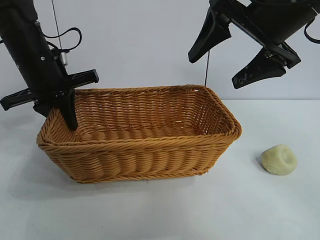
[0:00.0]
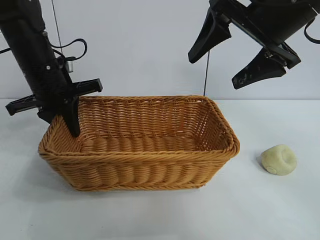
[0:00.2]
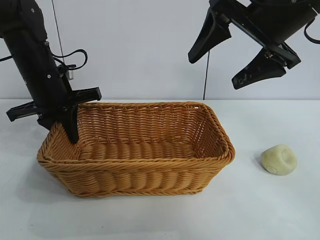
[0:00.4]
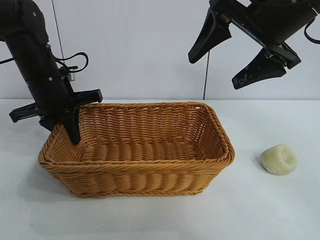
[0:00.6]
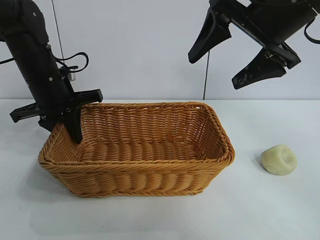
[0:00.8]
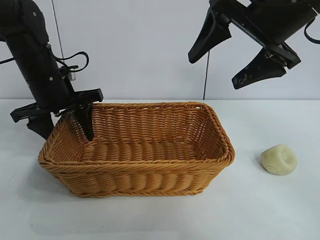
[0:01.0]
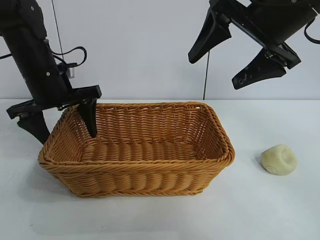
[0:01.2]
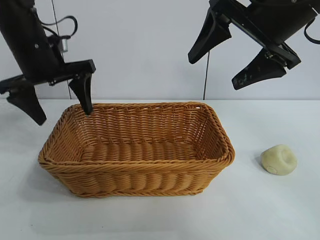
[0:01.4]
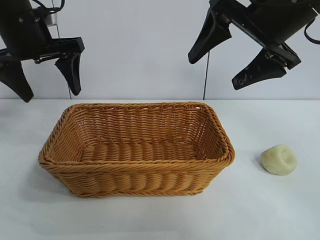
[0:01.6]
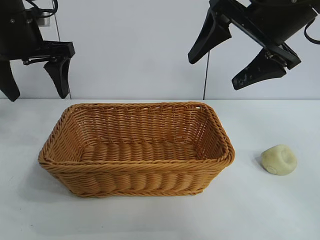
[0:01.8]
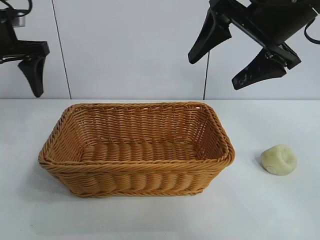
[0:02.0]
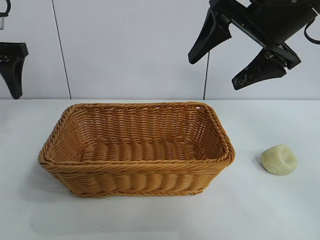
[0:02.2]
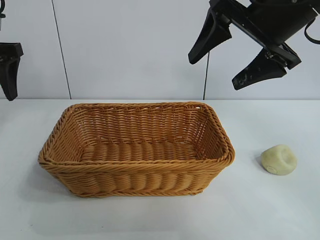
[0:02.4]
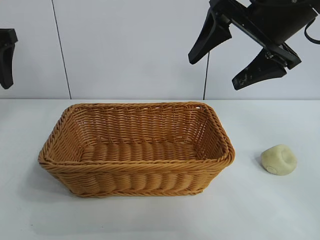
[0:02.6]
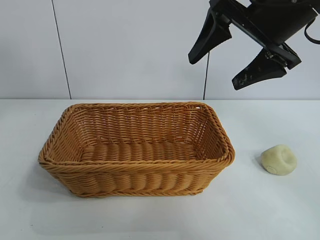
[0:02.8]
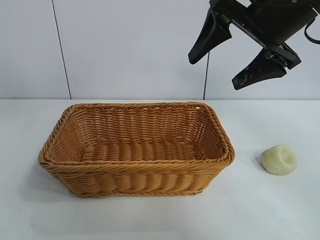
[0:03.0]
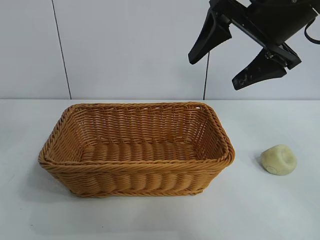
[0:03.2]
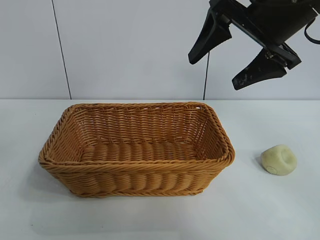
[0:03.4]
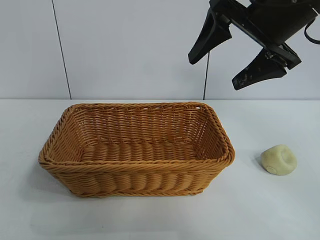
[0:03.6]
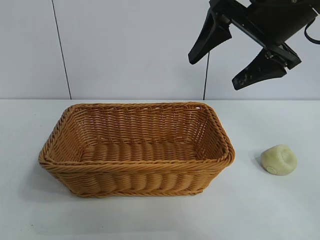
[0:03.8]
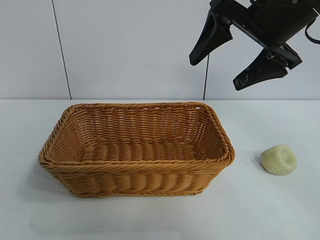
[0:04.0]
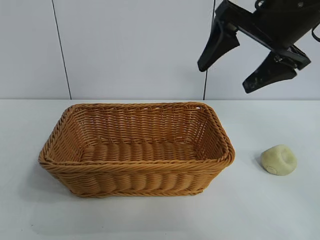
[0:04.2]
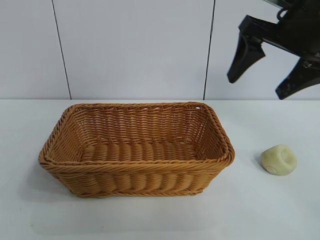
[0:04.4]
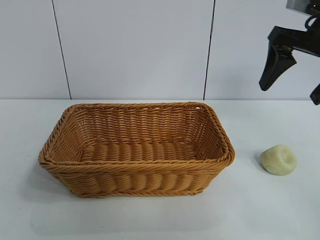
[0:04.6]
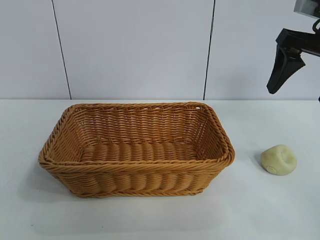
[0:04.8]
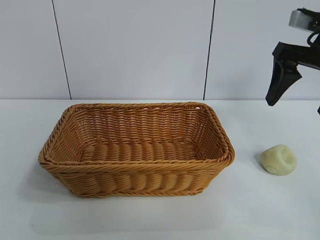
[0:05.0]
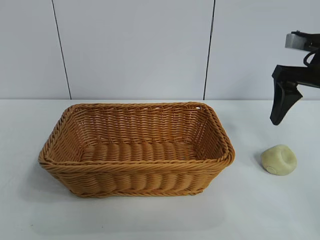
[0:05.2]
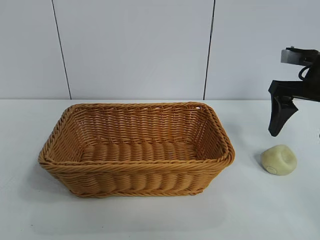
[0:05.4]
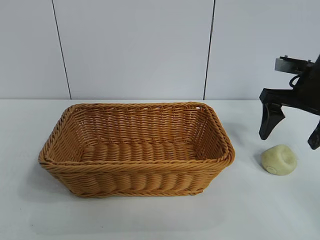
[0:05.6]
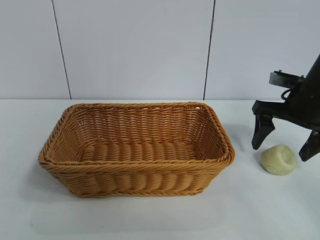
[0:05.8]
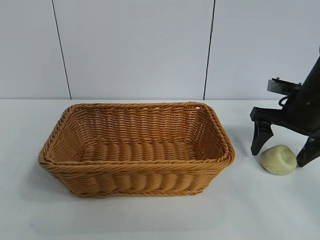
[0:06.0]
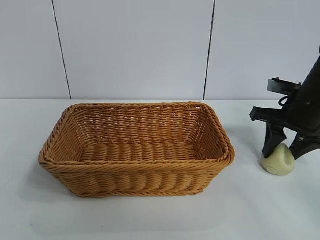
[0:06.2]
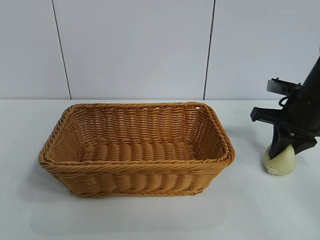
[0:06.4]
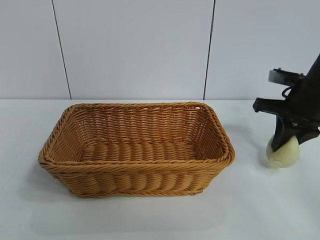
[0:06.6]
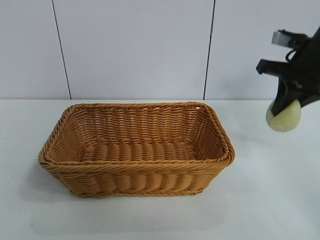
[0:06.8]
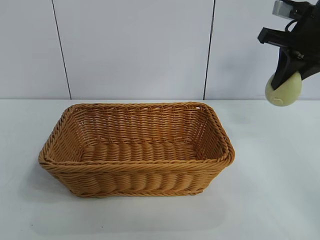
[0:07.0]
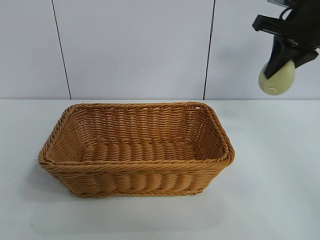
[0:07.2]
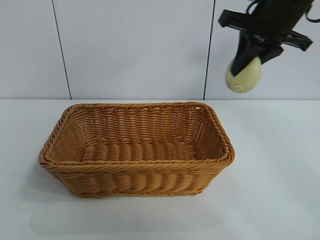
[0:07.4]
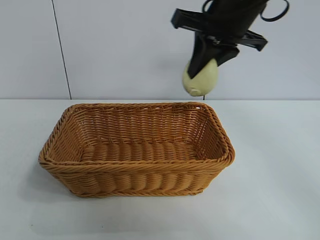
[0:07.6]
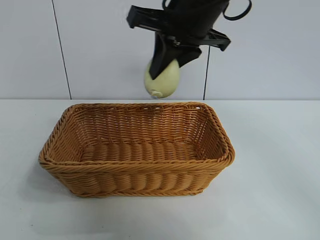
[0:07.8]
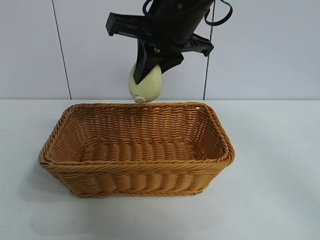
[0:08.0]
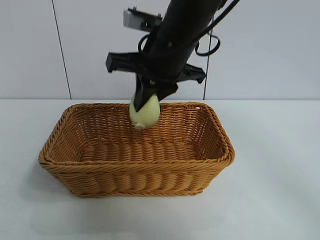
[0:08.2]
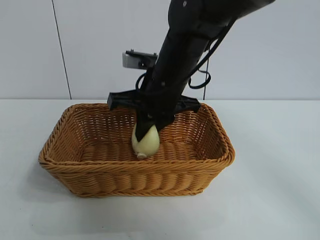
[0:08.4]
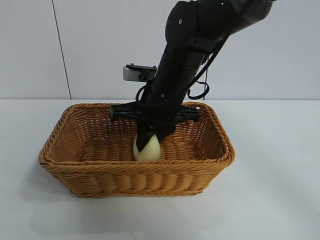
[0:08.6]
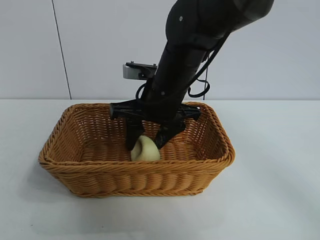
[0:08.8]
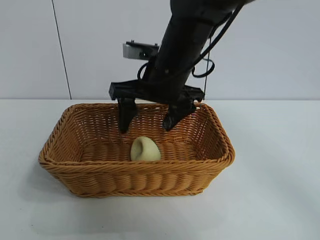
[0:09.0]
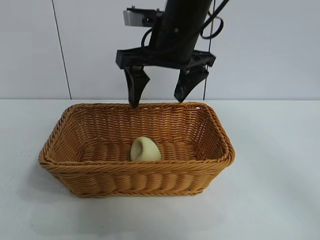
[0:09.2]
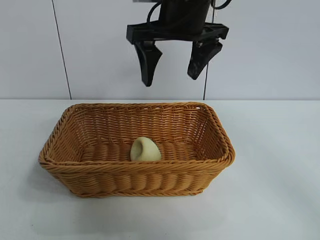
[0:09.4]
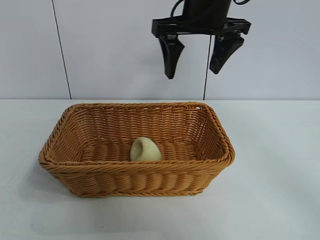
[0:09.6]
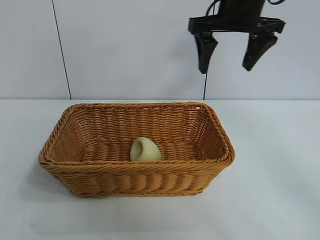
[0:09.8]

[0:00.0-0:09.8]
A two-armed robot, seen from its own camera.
Task of the whole recording: pick up the egg yolk pastry and put it into the basket.
Step, 0:01.2 to 0:06.2: Grasp egg yolk pastry with right gripper.
Step, 0:06.4 to 0:08.8: Place the egg yolk pastry in the basket with right gripper.
